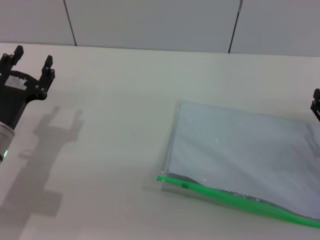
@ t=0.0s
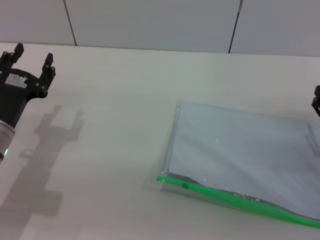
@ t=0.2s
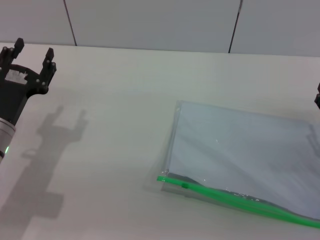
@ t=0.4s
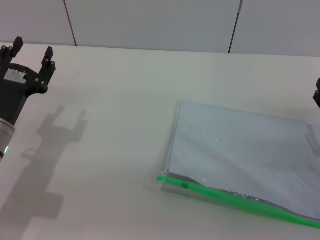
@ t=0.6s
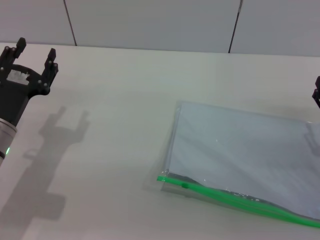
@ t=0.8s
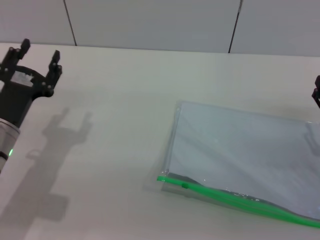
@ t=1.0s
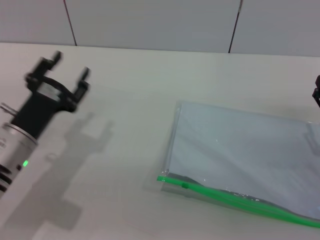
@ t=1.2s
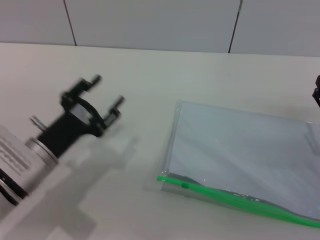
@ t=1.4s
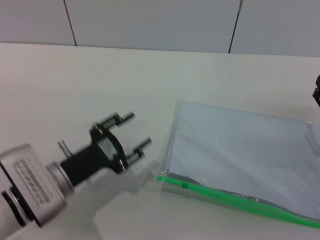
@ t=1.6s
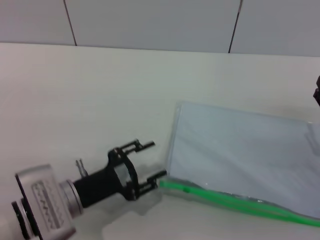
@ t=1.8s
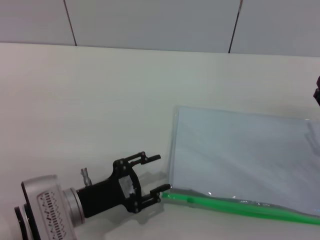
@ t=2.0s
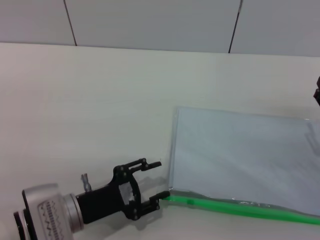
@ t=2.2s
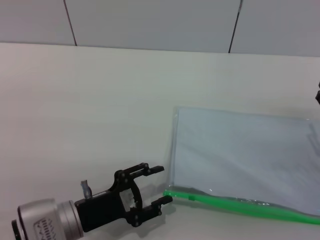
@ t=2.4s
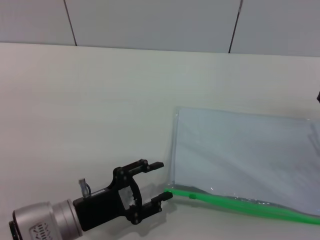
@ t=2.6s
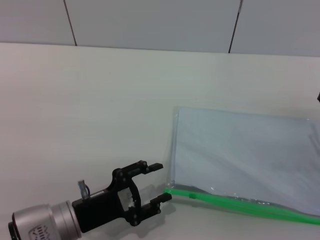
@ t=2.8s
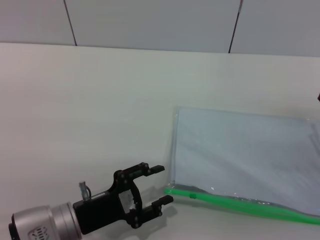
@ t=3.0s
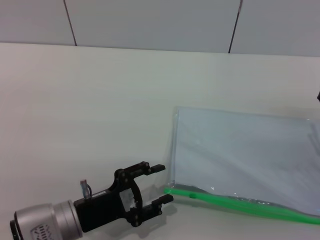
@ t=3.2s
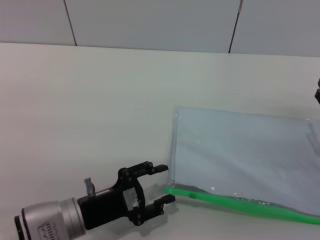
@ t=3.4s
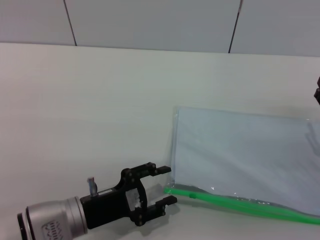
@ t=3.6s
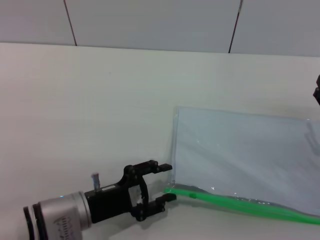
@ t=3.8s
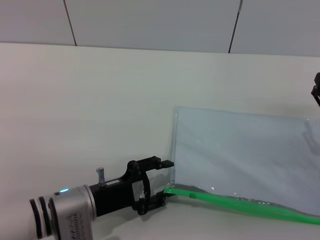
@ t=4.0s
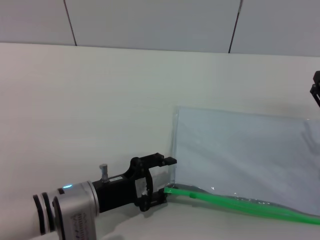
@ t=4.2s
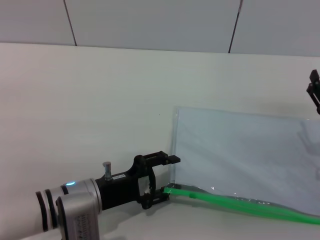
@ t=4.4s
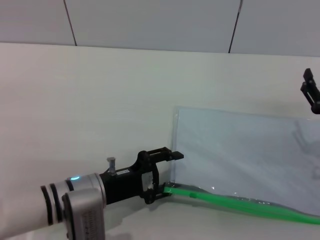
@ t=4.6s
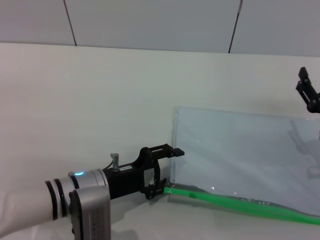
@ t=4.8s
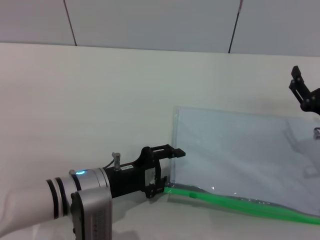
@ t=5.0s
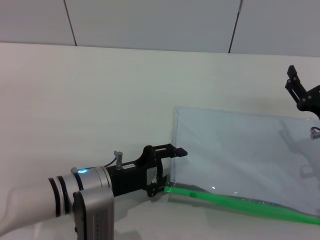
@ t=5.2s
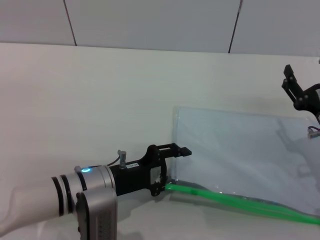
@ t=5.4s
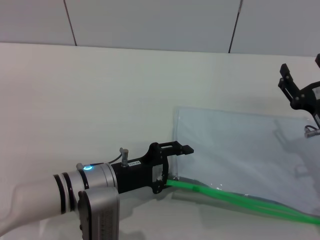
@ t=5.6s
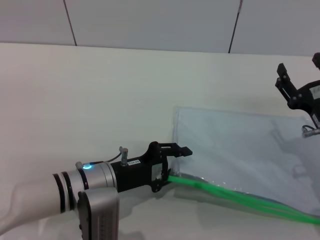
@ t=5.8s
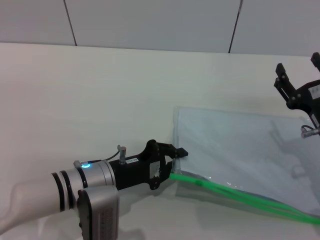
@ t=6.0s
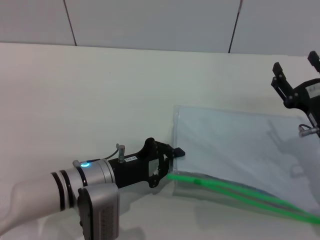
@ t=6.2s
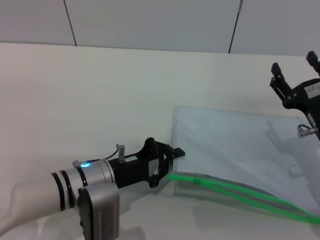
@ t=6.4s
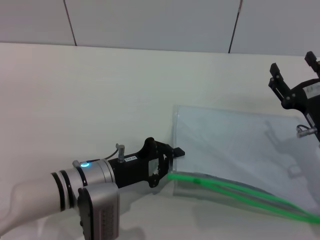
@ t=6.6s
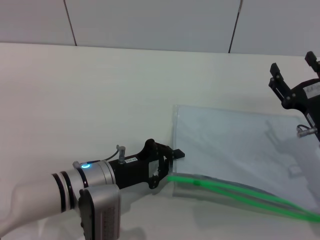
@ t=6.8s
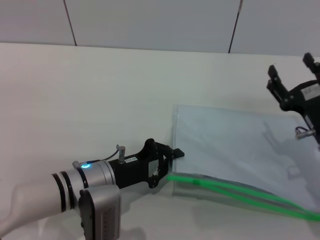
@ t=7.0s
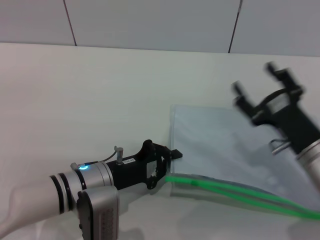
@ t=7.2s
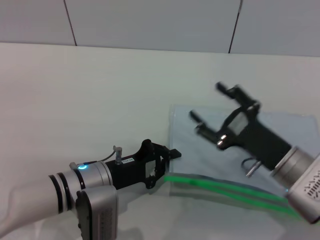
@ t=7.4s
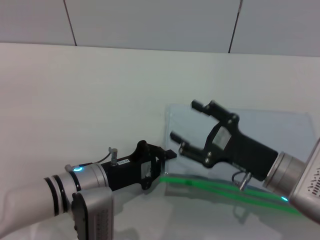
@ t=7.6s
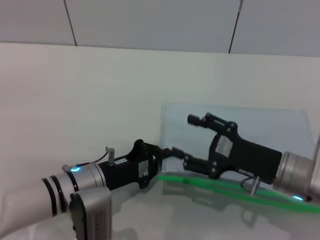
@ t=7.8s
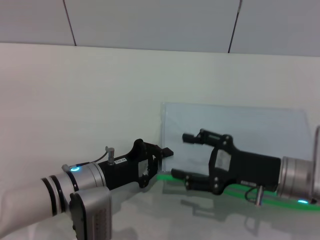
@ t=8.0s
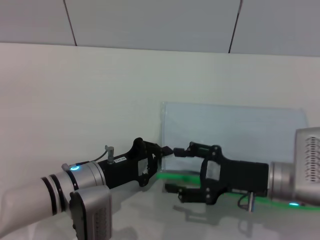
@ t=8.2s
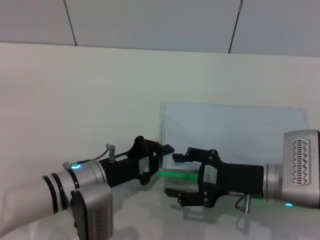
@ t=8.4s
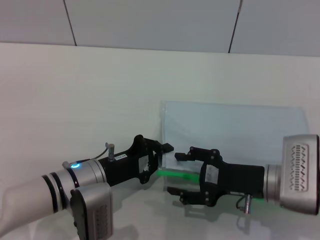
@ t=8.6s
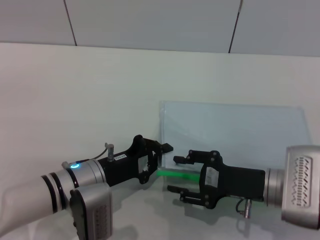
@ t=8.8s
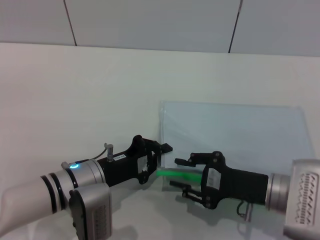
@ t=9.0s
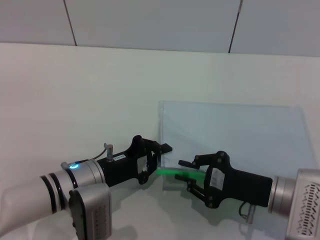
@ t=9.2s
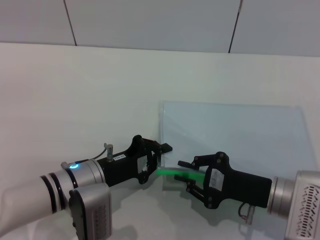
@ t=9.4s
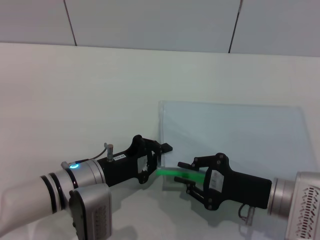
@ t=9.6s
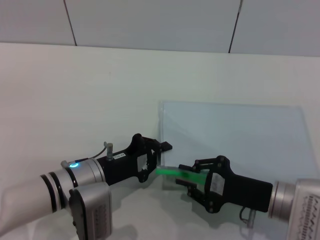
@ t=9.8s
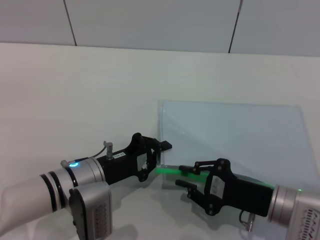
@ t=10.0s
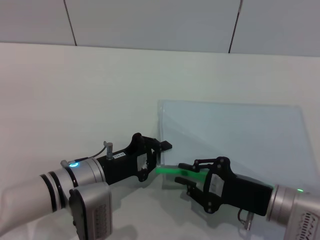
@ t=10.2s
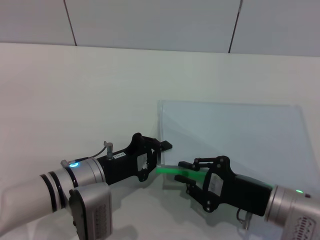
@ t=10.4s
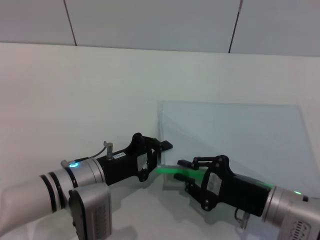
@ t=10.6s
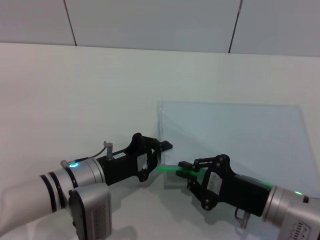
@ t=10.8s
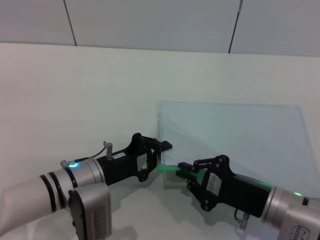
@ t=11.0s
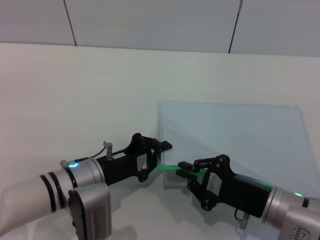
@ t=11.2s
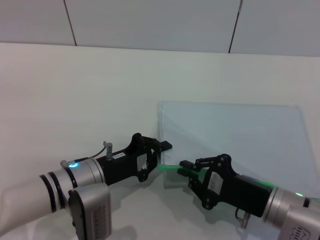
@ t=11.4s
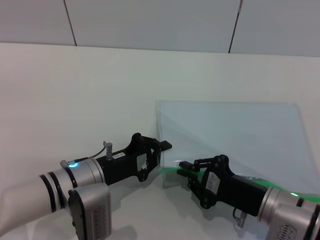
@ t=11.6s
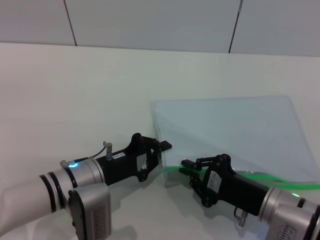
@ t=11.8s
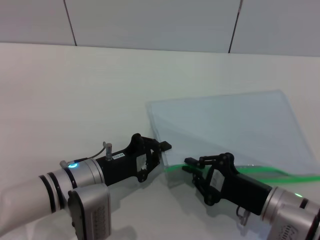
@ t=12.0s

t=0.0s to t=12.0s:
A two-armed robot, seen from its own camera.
Step, t=0.0s to t=7.0s: Pick up the transparent plastic bag with the left gripper.
t=0.0s to t=1.6s: The left gripper moves to the right, approximately 5 cm.
t=1.6s to t=3.0s: The left gripper changes place by approximately 5 cm.
t=3.0s to t=4.4s: The grippers stay close to where they were, moving slightly.
t=4.4s to t=6.0s: The left gripper closes.
t=6.0s to t=7.6s: The right gripper heads to the left, covering approximately 5 cm; the left gripper closes its fingers.
t=9.0s to t=10.4s: The right gripper closes up.
t=10.4s to t=12.0s: There are only small adjustments of the grippers.

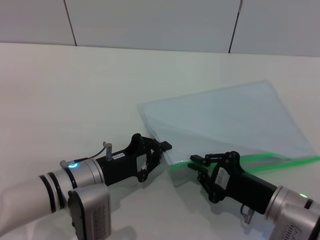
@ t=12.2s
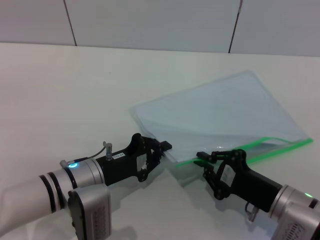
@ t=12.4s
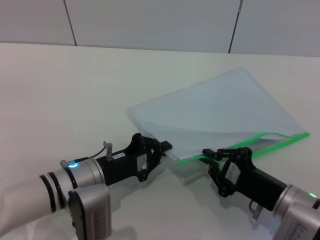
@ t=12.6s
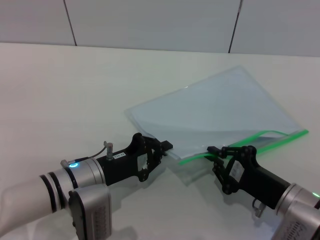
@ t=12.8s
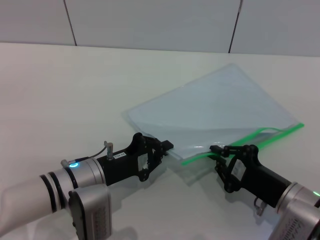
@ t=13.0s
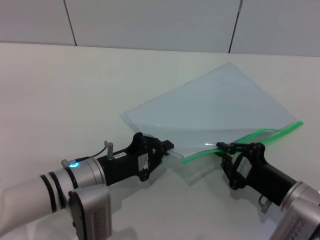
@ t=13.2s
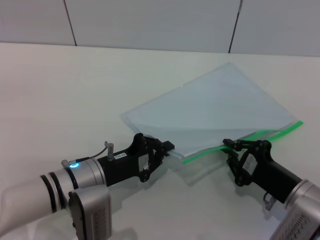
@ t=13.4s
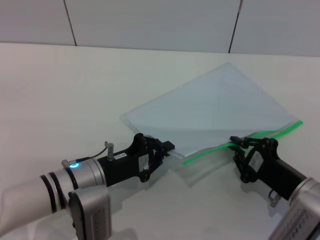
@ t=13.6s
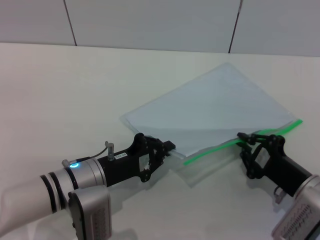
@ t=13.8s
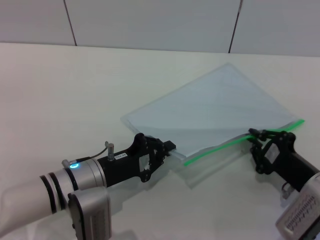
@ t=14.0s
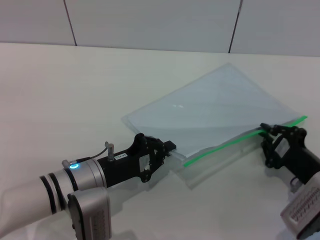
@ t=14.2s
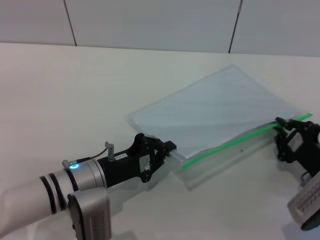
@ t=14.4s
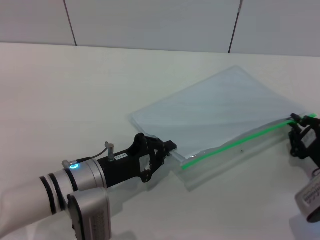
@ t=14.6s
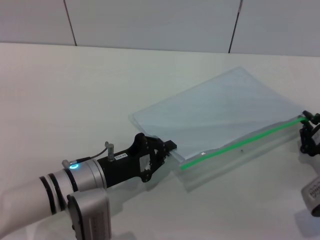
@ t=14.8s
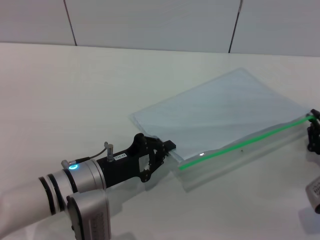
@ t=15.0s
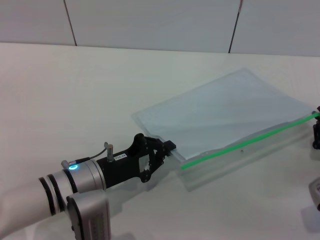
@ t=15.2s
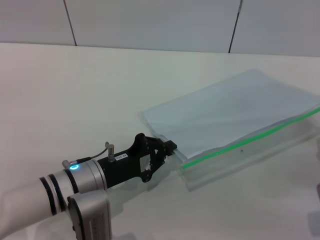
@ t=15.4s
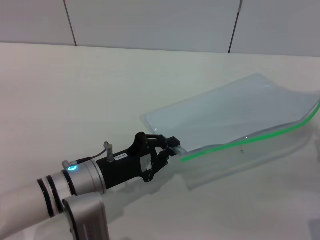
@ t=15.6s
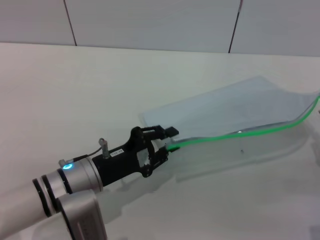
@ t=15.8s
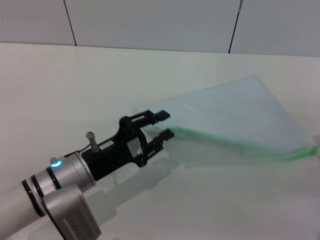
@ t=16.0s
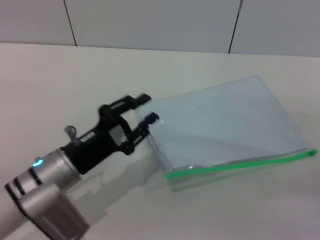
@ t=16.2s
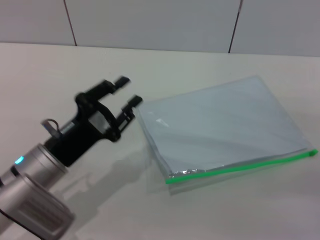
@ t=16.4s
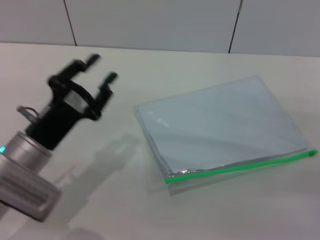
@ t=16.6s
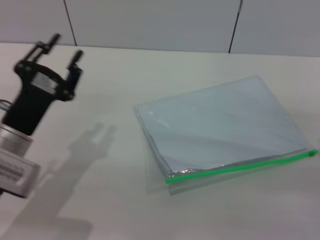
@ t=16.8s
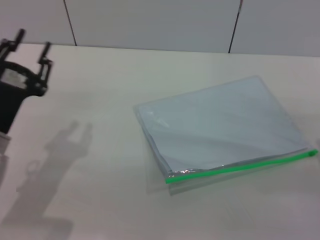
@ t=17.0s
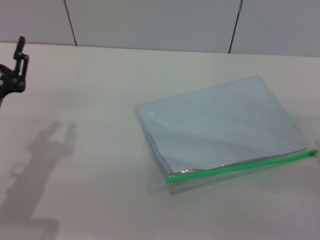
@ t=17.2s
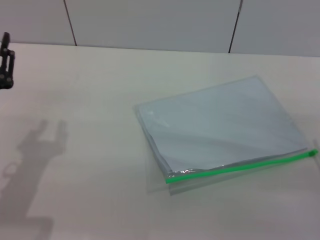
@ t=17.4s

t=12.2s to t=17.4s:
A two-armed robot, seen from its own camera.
Step, t=12.2s to t=16.2s: Pulling up the zipper on the transparent plastic bag with the right gripper to close it.
Step, t=16.4s to t=16.8s: Place the transparent plastic bag.
t=12.2s to t=14.0s: The right gripper travels to the right by approximately 5 cm.
t=14.0s to t=15.6s: The right gripper goes some 5 cm to the right.
t=15.6s to t=17.4s: The right gripper opens up. Meanwhile the left gripper is displaced to the left by roughly 10 cm, and opens.
